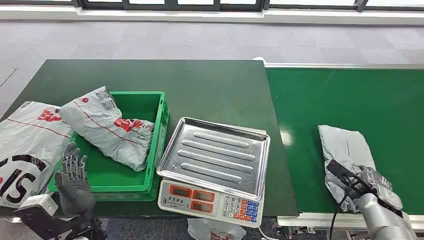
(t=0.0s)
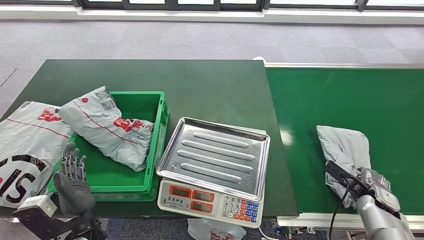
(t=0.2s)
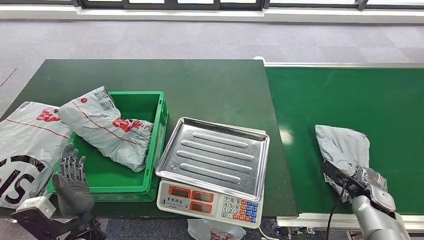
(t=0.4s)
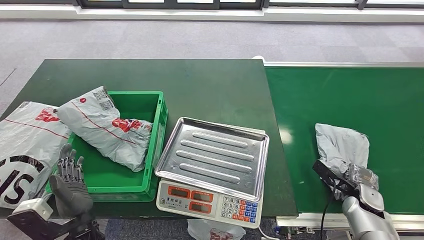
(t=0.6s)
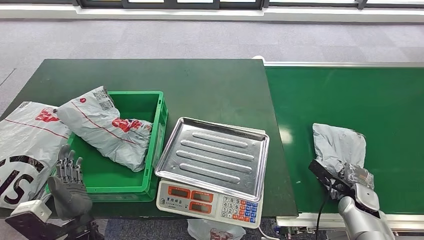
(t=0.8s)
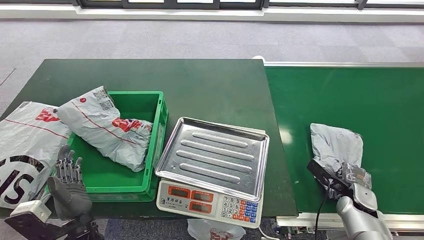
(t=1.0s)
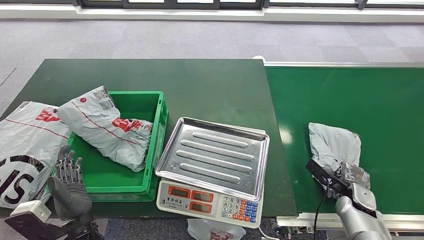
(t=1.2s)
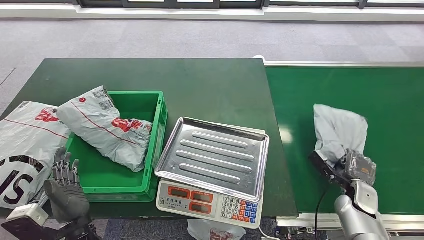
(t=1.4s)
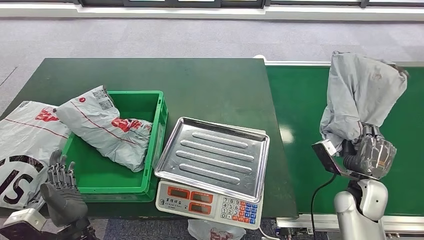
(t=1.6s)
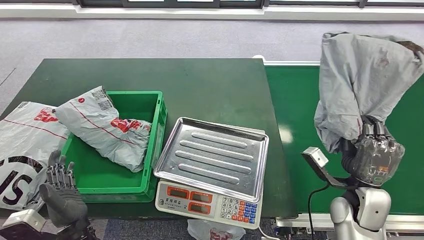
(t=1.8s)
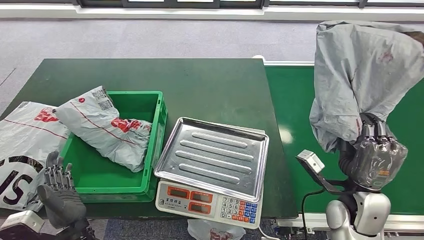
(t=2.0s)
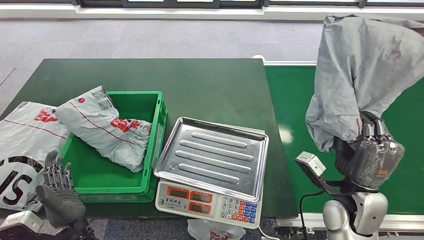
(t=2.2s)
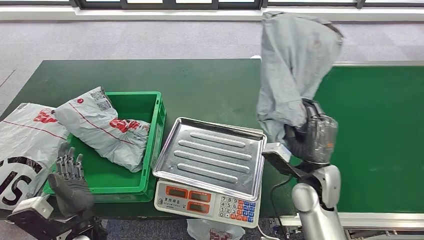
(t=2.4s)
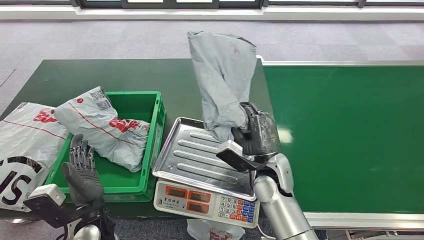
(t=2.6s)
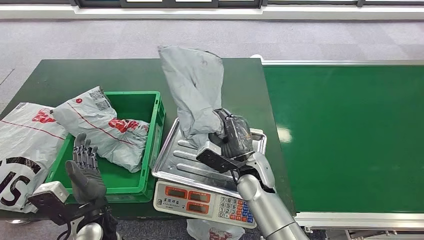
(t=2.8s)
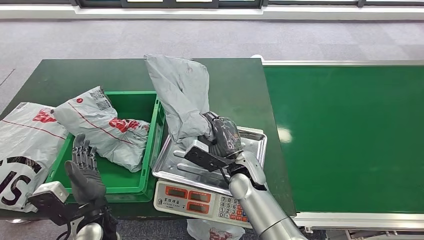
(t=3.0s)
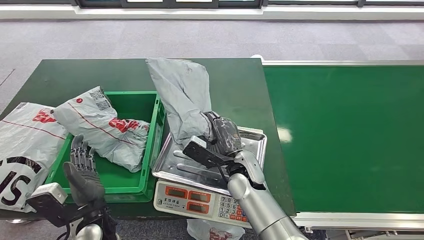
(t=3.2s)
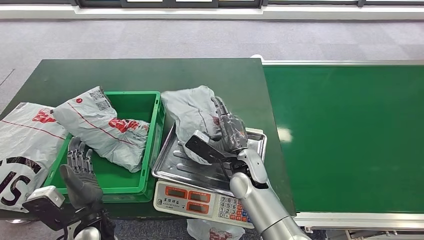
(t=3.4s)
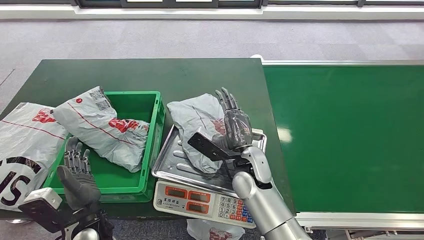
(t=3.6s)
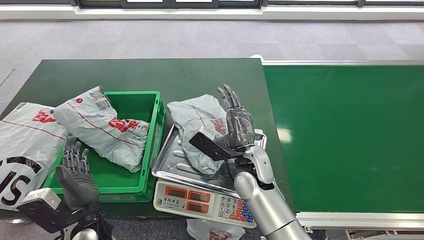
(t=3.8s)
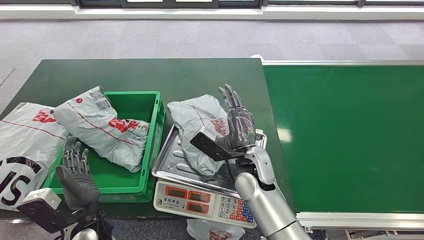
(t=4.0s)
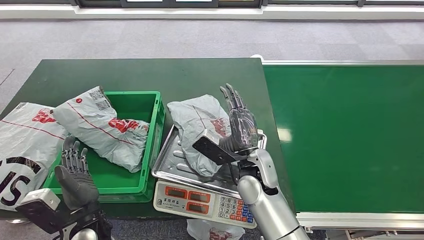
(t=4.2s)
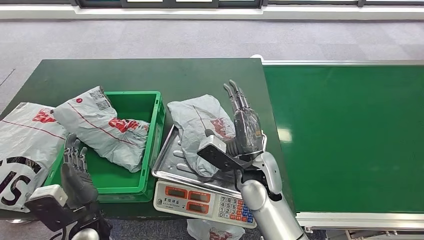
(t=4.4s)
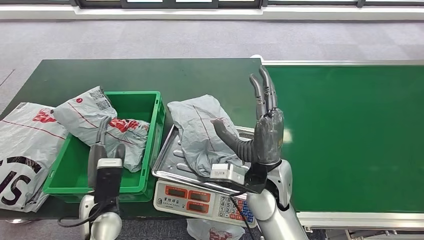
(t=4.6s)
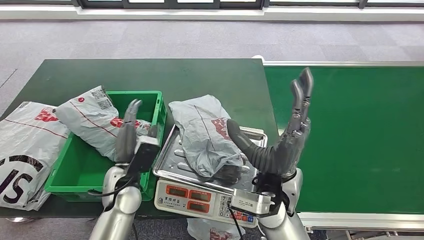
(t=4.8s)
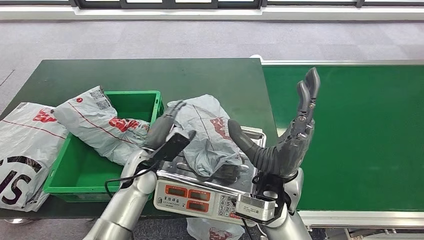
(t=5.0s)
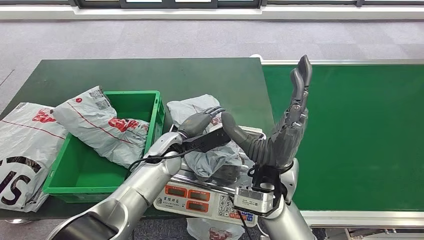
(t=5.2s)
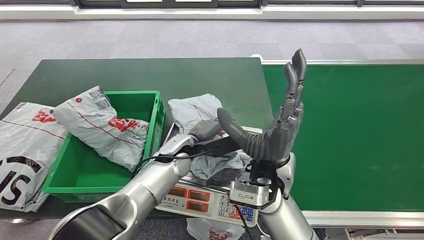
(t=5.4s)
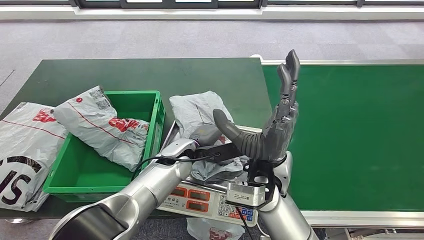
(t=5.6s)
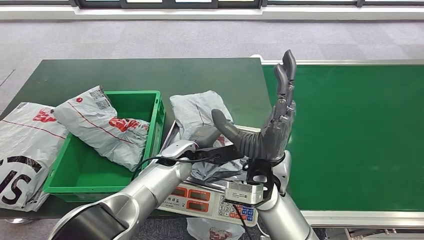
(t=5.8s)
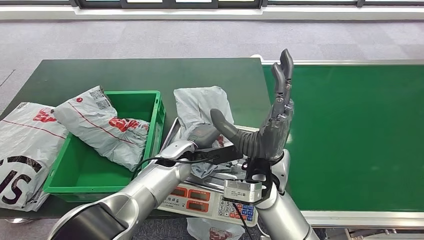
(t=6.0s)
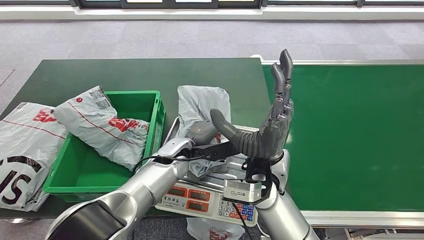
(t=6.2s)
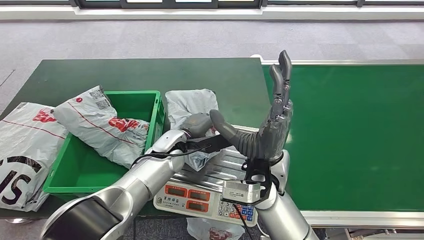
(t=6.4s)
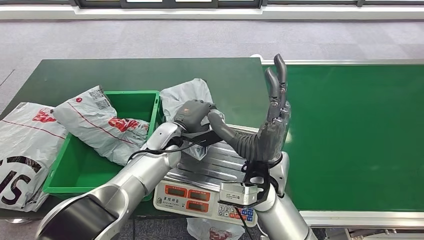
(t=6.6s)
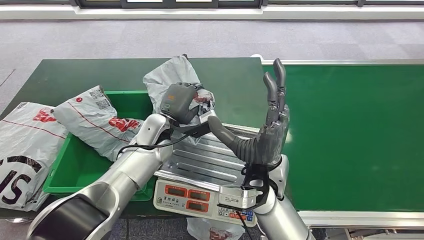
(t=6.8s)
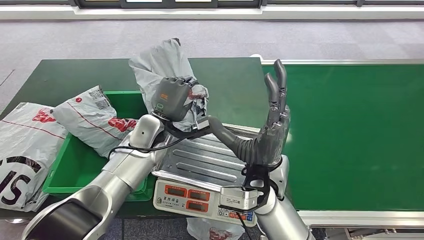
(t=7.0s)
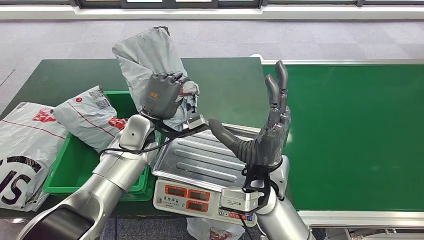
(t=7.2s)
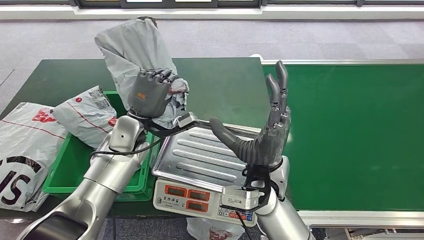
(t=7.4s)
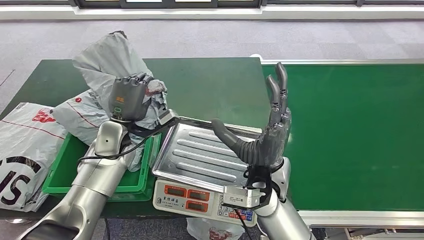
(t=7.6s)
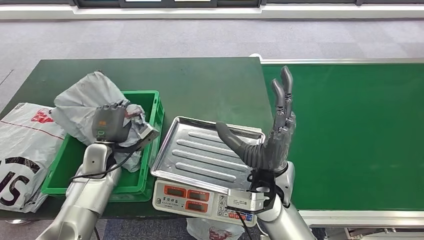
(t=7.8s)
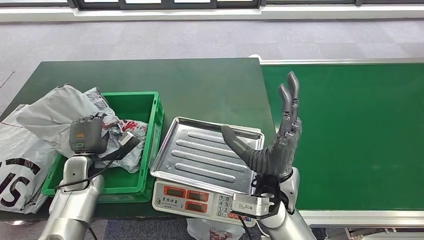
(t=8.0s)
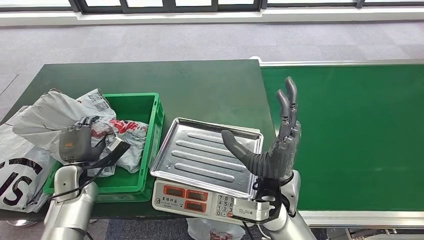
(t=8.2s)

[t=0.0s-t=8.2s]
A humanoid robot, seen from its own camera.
Task of the whole recording: Weigh the package on the weighing device and place it in the left basket.
Step, t=0.0s to t=2.2s: Pick up the package from the conveyor belt.
Step, t=2.4s to t=4.2s: Place the package onto the inbound machine.
Step, t=4.4s to t=7.2s: Pick up the package from the inbound machine.
Step, t=7.6s to t=8.2s: Place the package into the parcel locker.

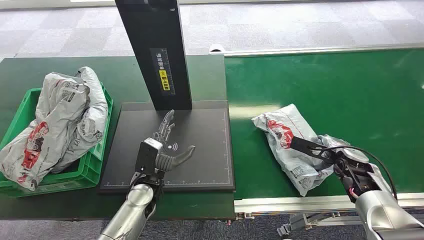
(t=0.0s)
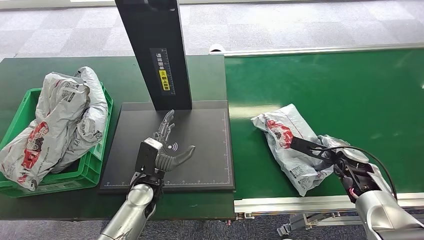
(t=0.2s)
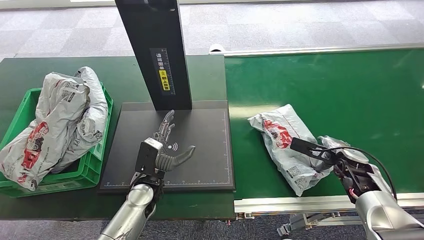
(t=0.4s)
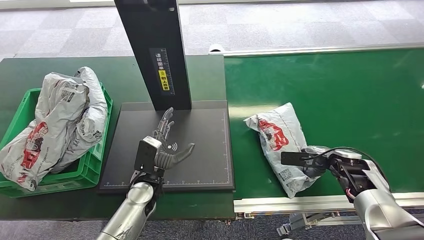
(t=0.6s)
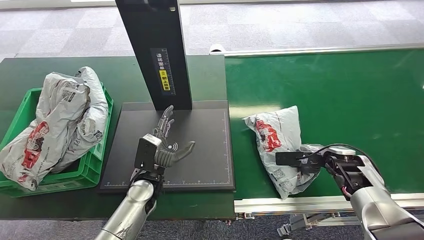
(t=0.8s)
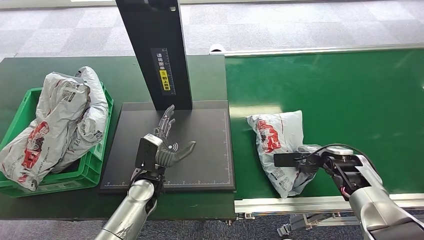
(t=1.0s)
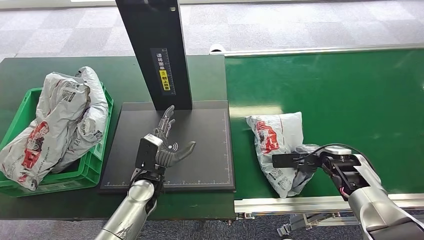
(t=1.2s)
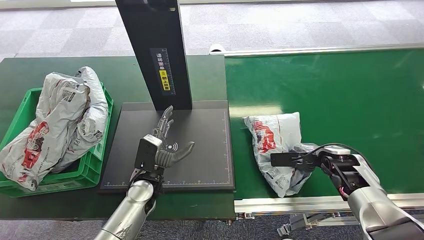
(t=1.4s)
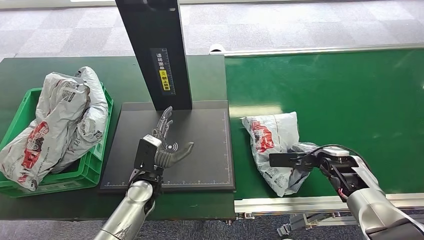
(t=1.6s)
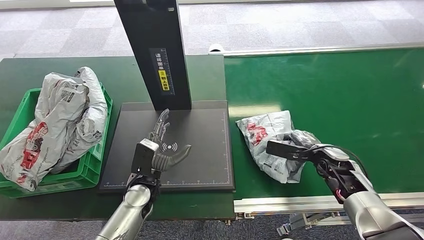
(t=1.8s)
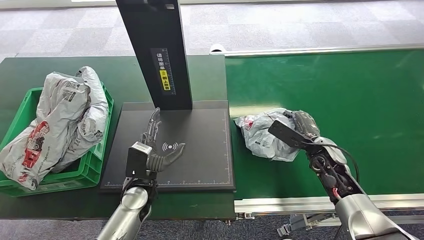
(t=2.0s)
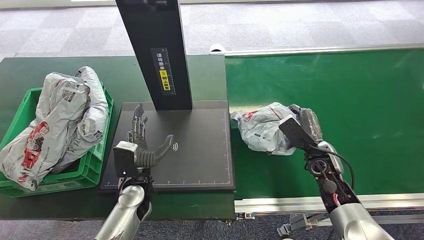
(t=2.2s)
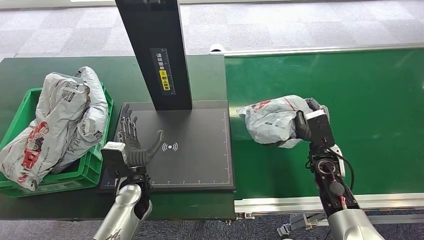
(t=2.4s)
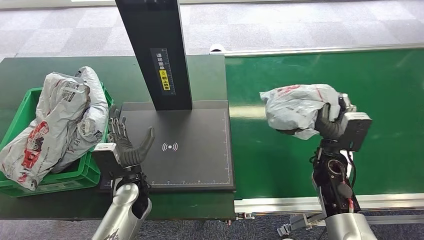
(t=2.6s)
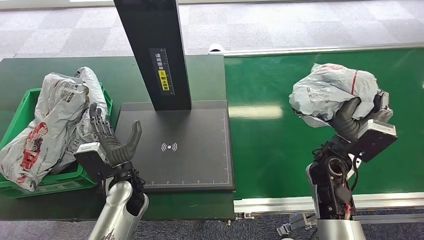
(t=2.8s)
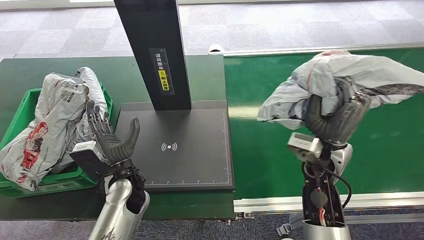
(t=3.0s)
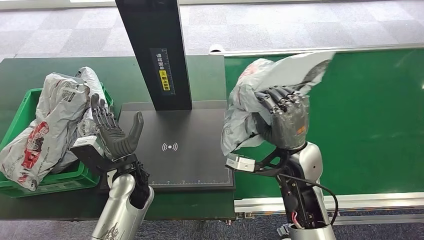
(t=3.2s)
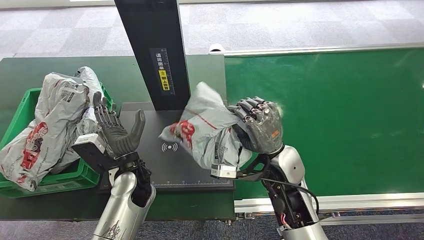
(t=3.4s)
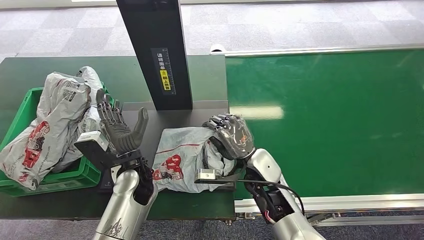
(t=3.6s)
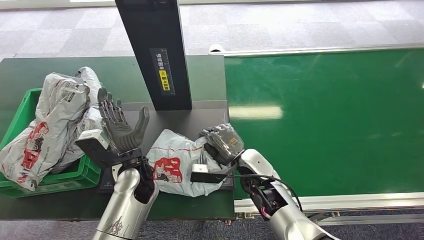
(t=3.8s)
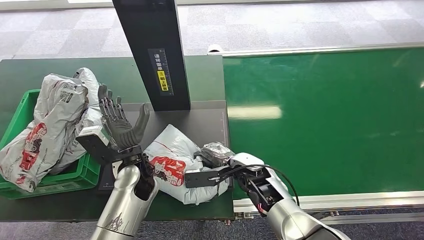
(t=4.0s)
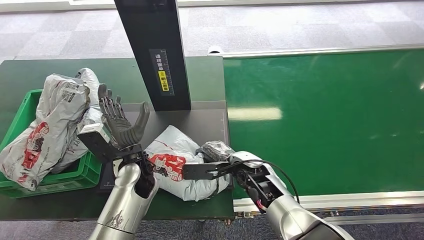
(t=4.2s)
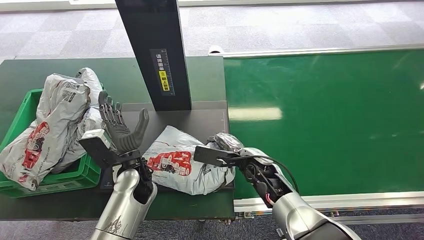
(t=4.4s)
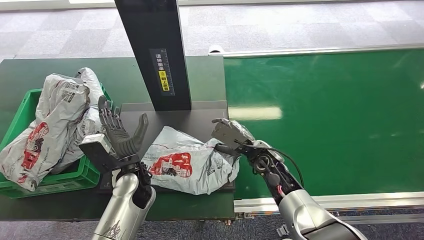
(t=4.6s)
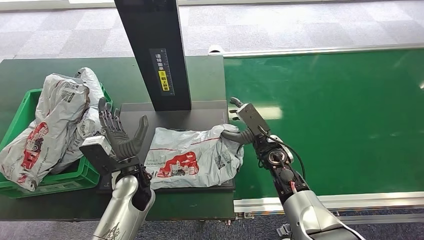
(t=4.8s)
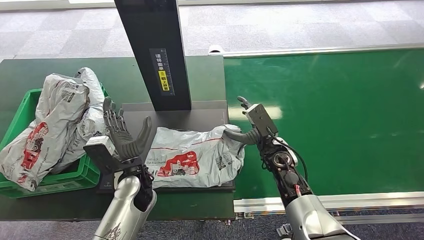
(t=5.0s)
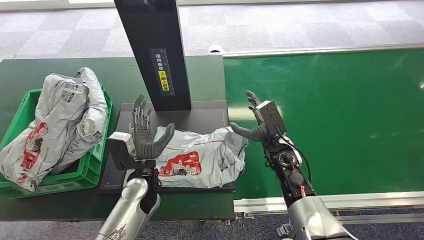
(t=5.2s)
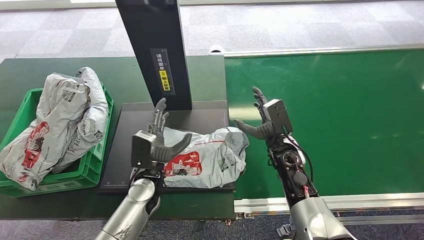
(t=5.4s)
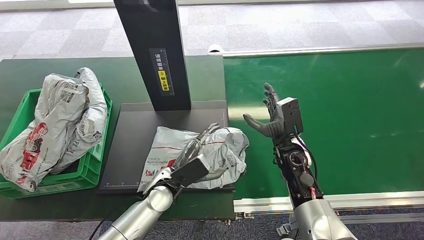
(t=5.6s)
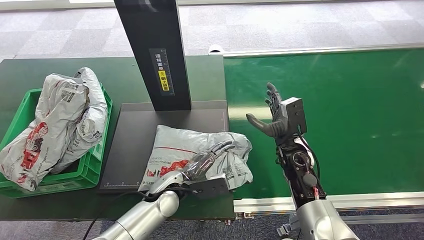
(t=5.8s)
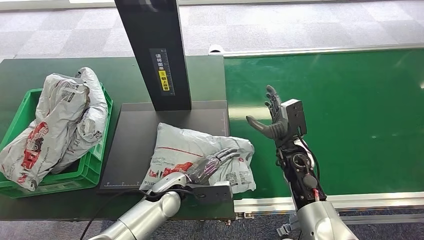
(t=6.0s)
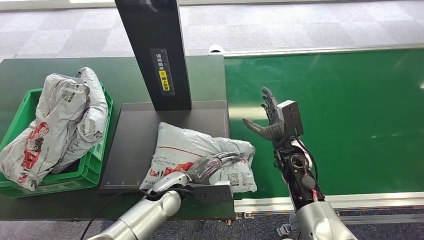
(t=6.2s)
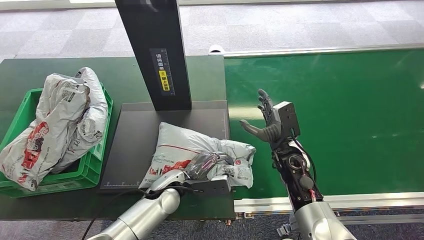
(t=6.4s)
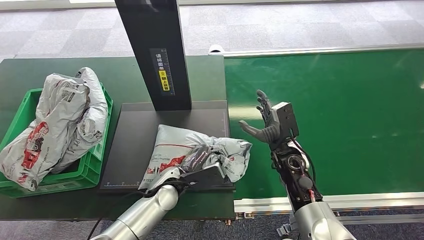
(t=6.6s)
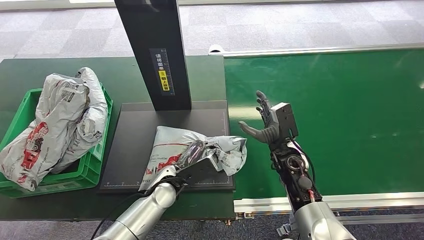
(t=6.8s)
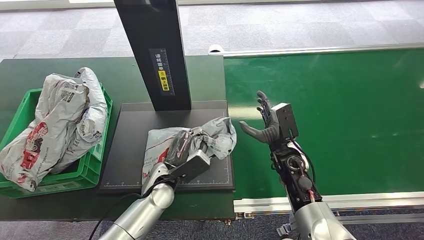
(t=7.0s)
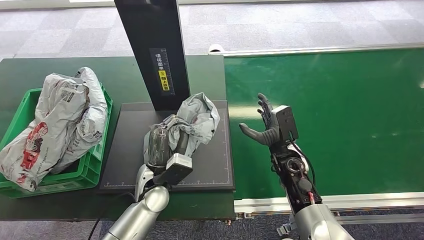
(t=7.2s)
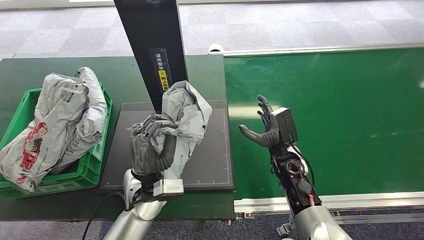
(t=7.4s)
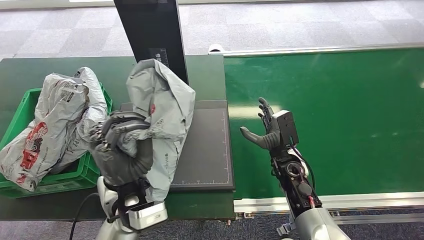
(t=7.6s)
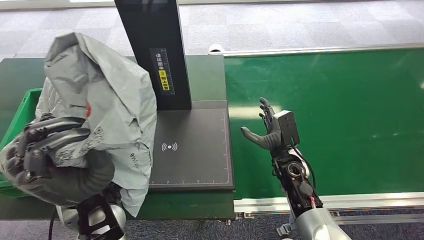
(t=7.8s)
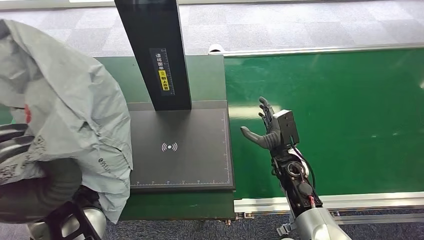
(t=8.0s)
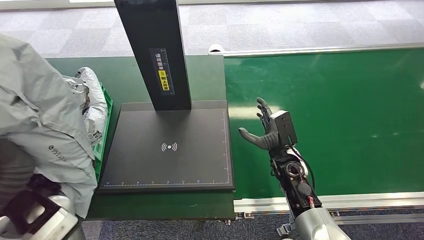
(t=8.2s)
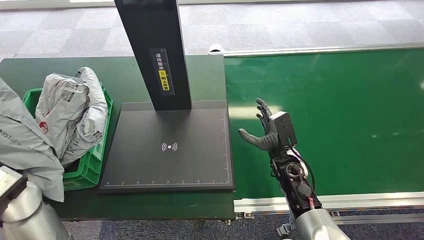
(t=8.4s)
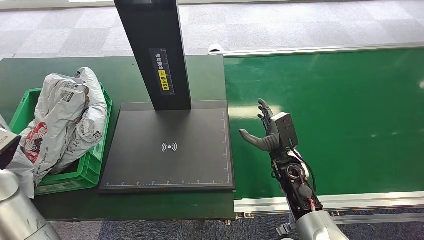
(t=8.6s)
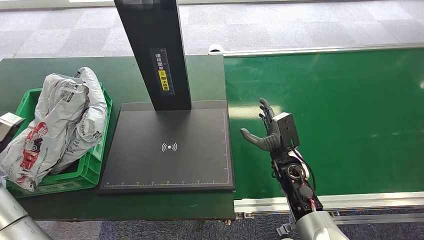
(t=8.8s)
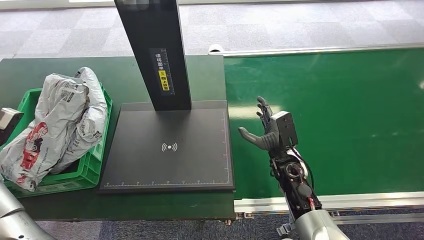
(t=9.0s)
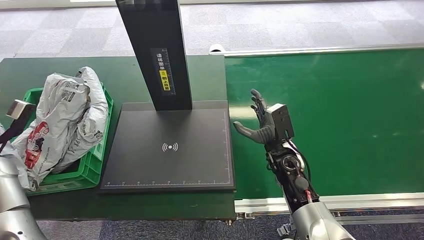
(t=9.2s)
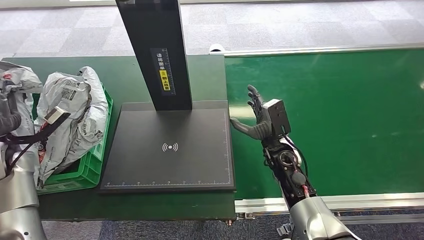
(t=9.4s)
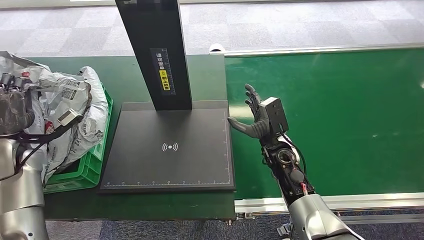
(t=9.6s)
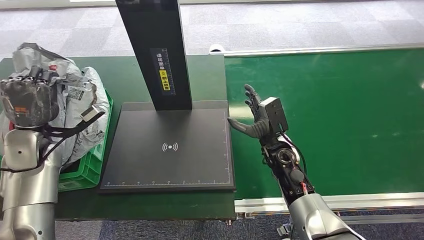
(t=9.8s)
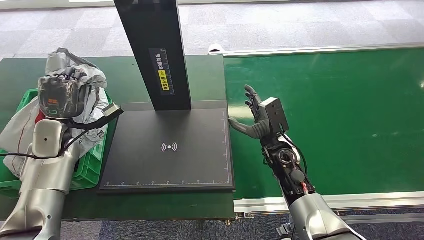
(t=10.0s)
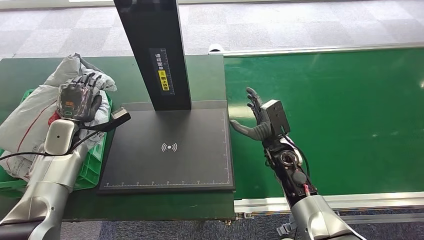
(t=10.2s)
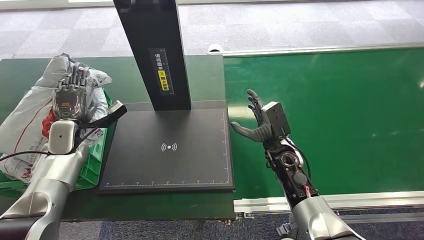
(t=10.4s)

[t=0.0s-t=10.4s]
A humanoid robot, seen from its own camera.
Task of the whole recording: Weigh the package on the weighing device and place it in the left basket.
Step, t=0.0s to t=2.8s: Pick up the package from the conveyor belt.
Step, t=3.0s to t=5.0s: Place the package onto the inbound machine.
Step, t=5.2s to t=7.6s: Pick up the package from the inbound machine.
t=6.0s to t=7.4s: The left hand goes about 10 cm upward.
t=7.4s to t=9.0s: The left hand heads to the left, covering about 40 cm.
t=9.0s to t=10.4s: The left hand moves forward, to the right and downward, about 20 cm.
